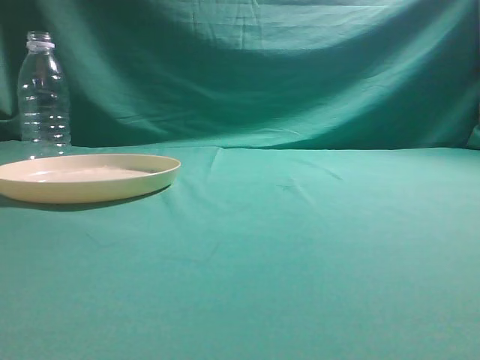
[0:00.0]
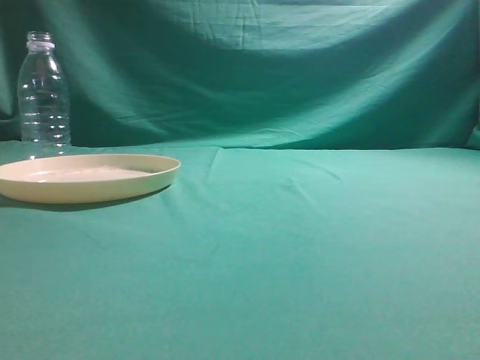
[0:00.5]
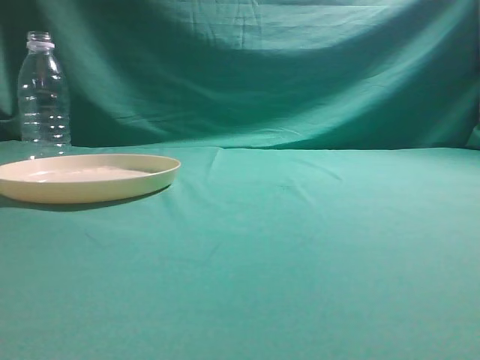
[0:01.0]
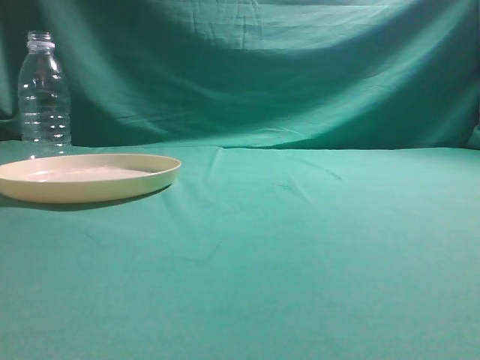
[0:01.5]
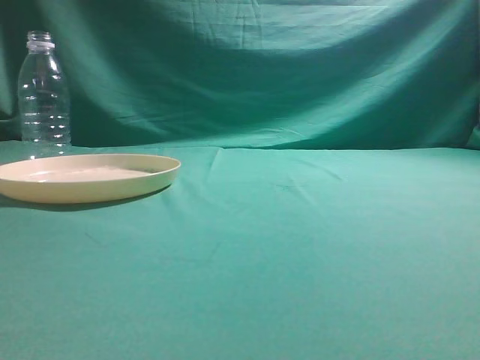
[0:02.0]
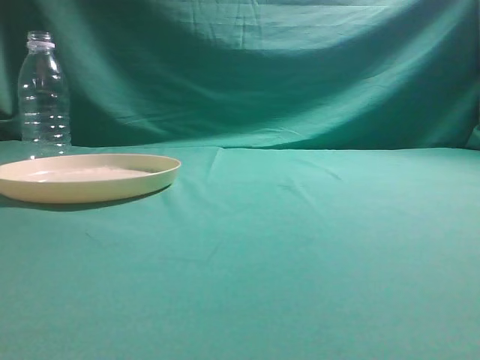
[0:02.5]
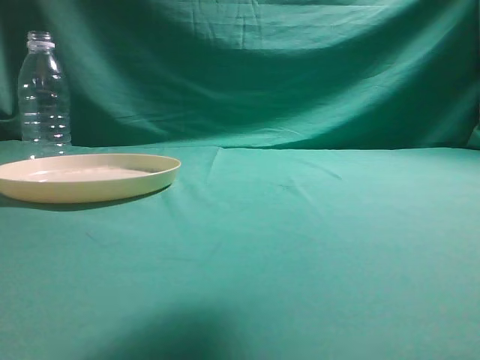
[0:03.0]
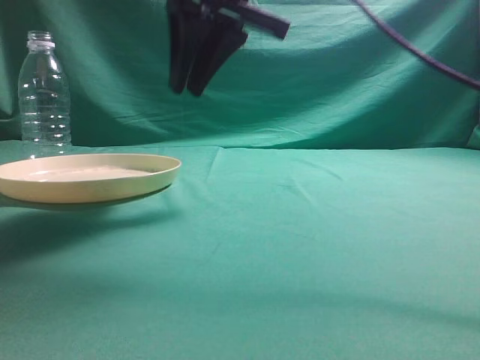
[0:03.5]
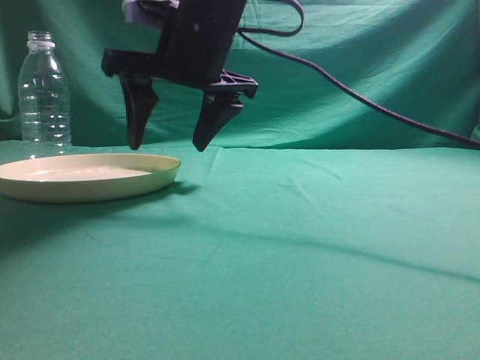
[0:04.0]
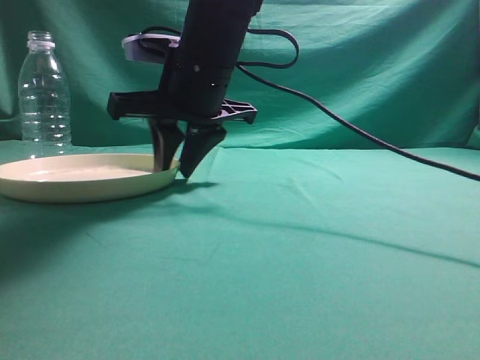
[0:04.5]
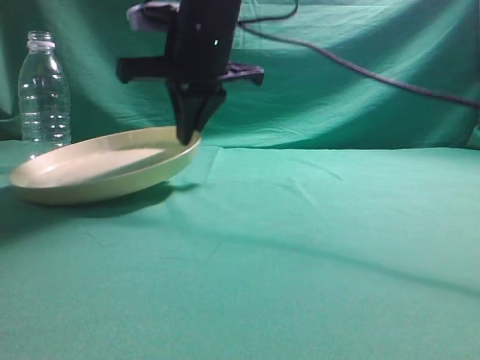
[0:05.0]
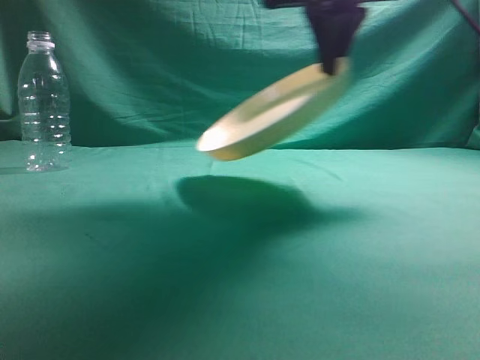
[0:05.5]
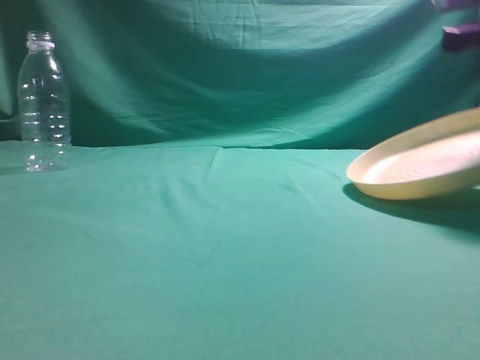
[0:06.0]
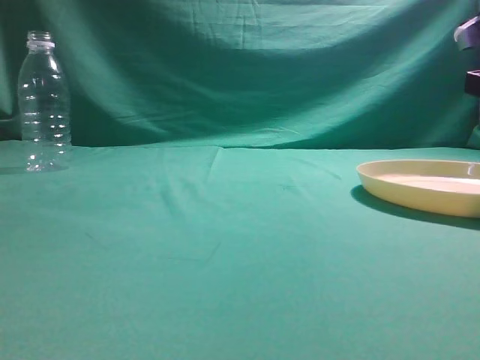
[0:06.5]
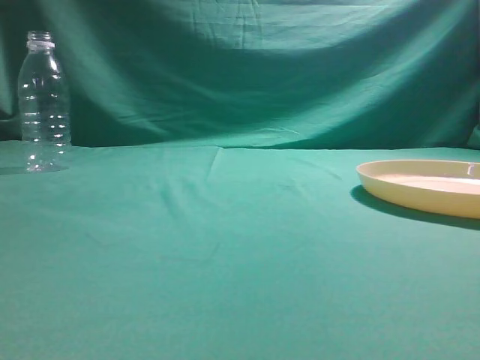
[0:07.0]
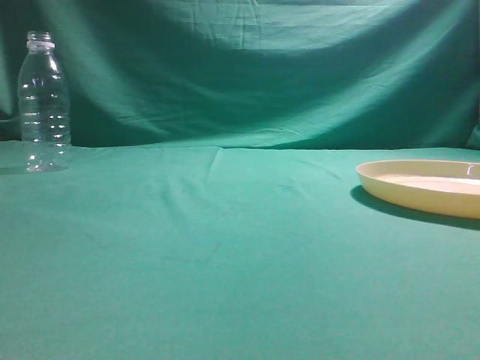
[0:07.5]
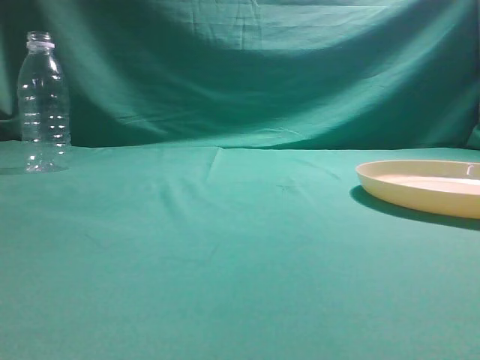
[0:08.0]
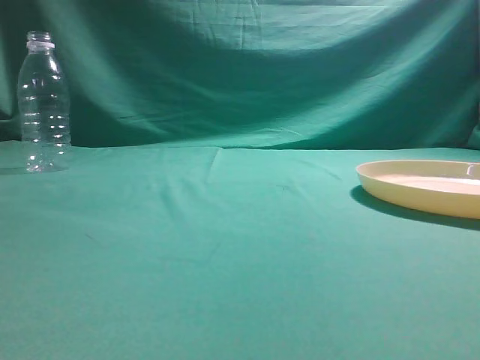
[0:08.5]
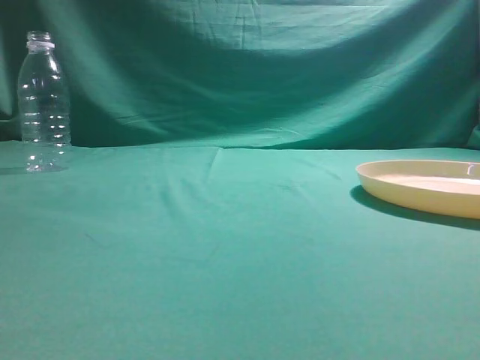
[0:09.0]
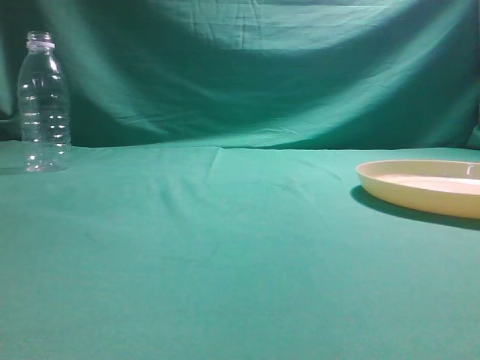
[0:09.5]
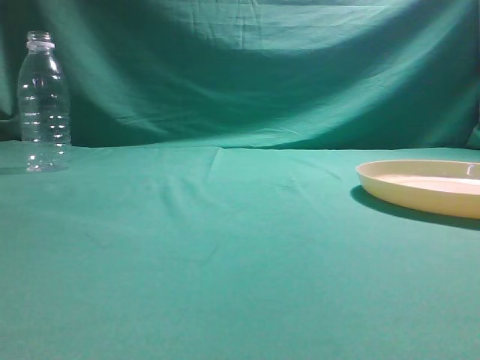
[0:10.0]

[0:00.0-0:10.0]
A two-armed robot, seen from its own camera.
Step, 0:00.0 to 0:04.5: Pick the container that can hold fruits.
Step, 0:05.0 to 0:06.5: Move the picked object to the right side of the table.
0:02.0 to 0:04.0: The right gripper travels to the left and forward by approximately 40 cm, and opens its fingers.
0:04.0 to 0:06.0: The right gripper goes some 25 cm to the right, and closes up.
0:06.0 to 0:08.0: The right gripper is displaced backward and upward by approximately 35 cm, and opens and closes again.
